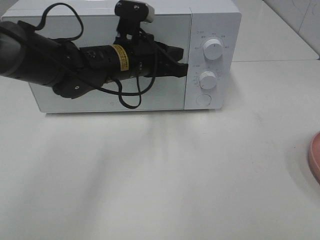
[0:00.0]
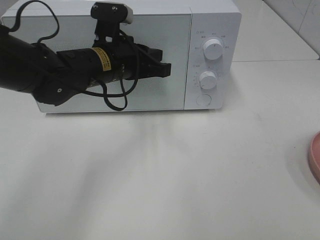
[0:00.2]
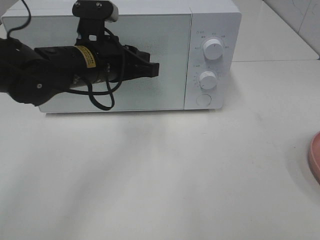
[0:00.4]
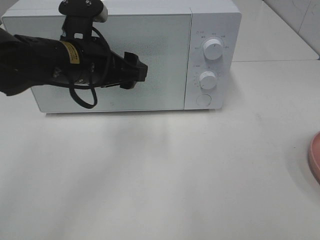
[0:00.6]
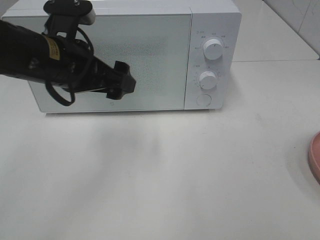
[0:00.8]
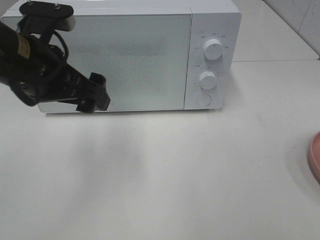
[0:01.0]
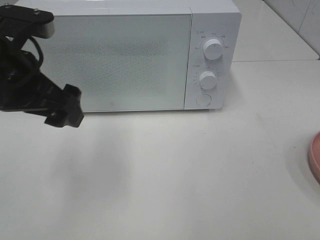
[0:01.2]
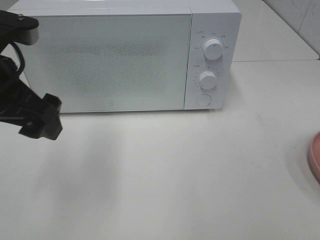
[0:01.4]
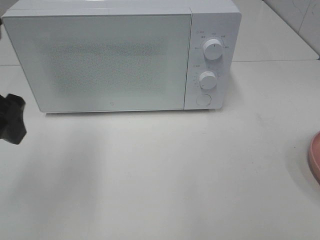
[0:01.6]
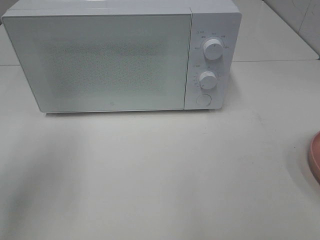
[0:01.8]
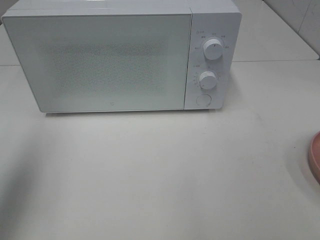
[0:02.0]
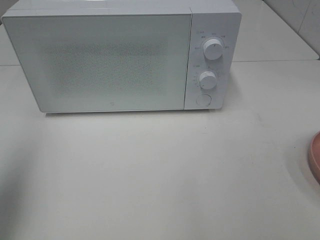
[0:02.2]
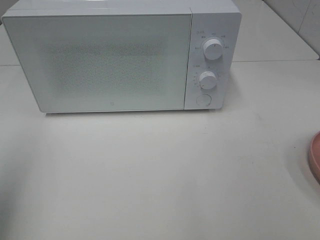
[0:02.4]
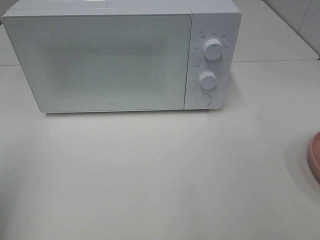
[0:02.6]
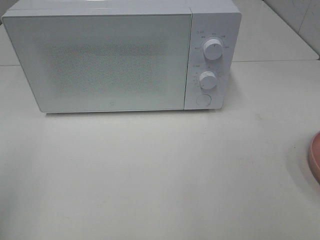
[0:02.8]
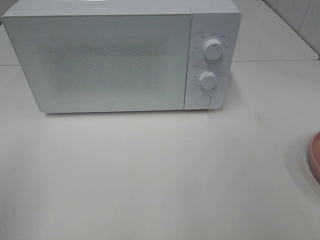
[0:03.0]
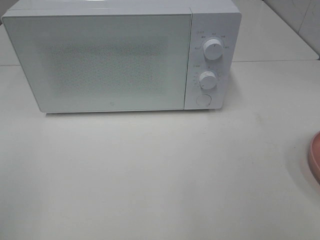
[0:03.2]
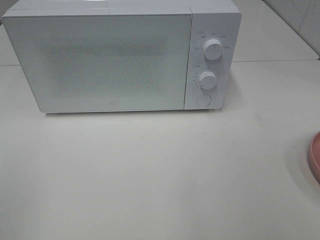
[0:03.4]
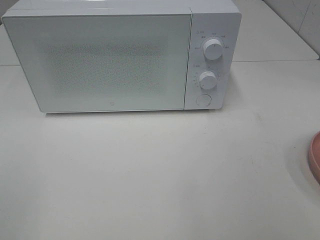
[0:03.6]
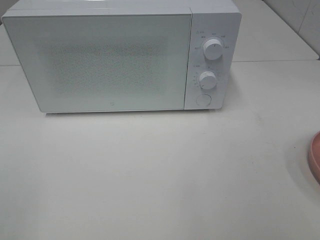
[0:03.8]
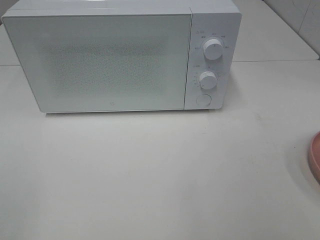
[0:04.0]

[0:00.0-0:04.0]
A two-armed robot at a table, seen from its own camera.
Task of the whole recording: Heat the burger.
0:00.0 to 0:01.4: The left gripper shifts roughly 20 cm to the left, backward and upward, and opens up.
0:01.4 to 0:02.6: The left gripper heads to the left and backward, covering approximately 15 cm.

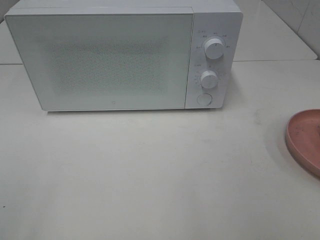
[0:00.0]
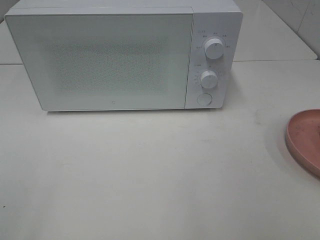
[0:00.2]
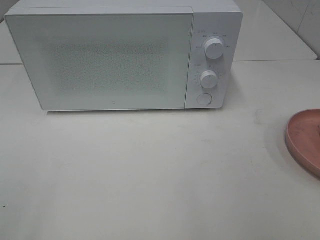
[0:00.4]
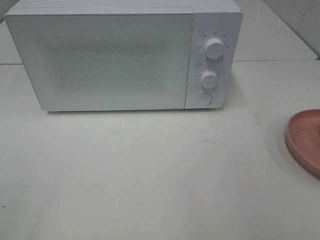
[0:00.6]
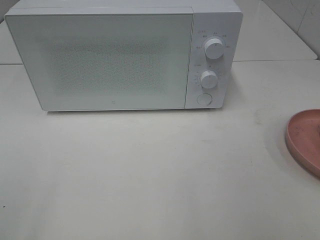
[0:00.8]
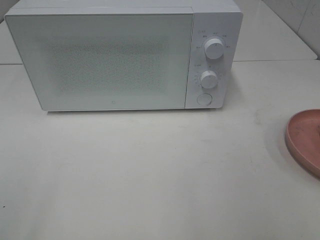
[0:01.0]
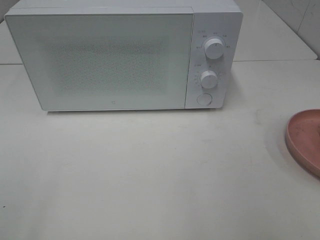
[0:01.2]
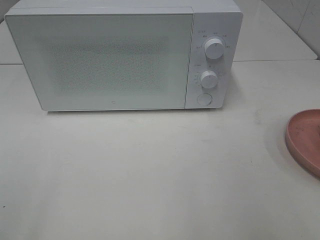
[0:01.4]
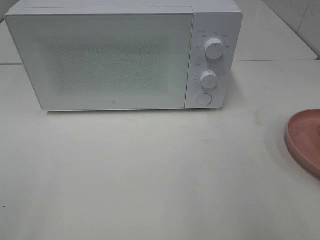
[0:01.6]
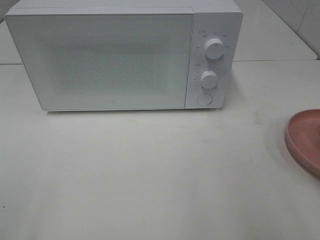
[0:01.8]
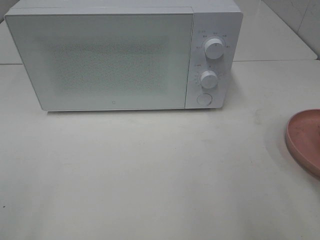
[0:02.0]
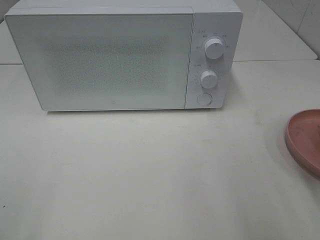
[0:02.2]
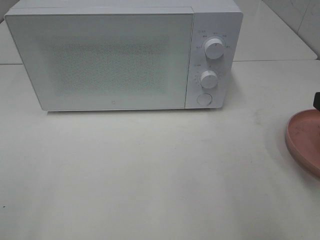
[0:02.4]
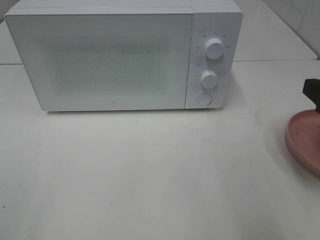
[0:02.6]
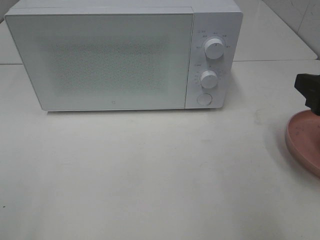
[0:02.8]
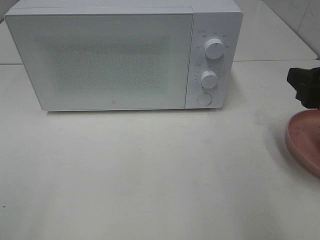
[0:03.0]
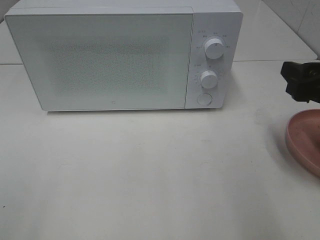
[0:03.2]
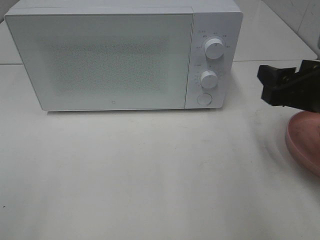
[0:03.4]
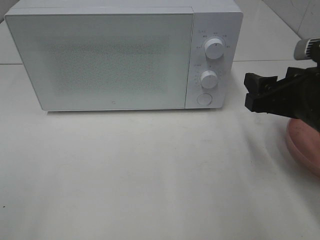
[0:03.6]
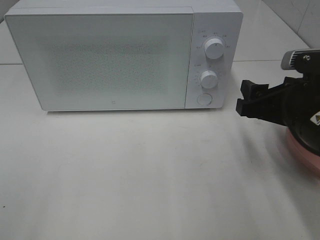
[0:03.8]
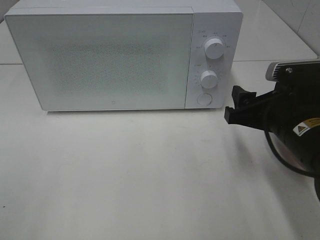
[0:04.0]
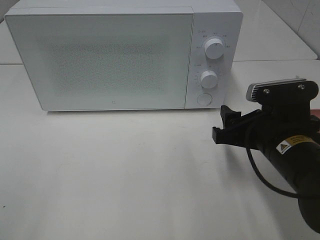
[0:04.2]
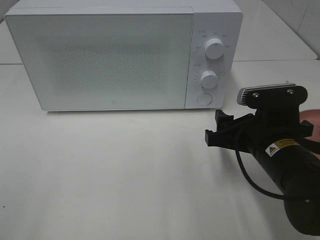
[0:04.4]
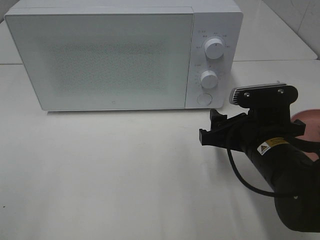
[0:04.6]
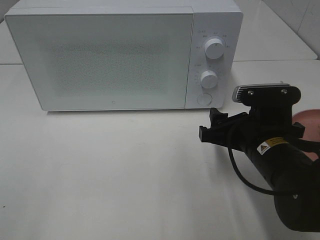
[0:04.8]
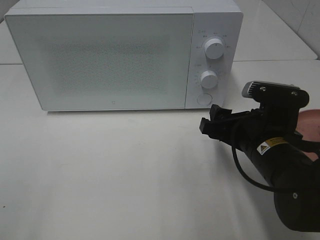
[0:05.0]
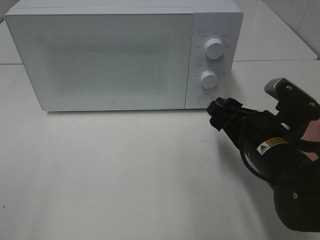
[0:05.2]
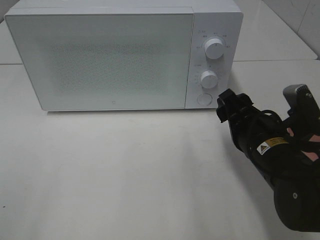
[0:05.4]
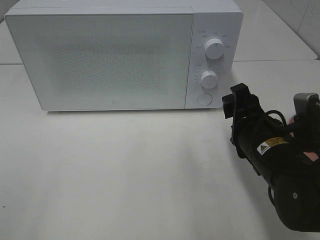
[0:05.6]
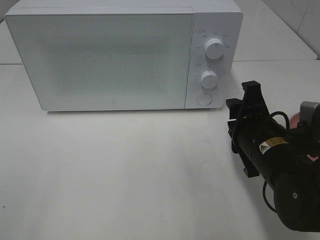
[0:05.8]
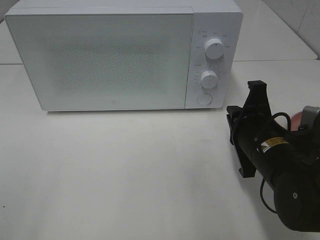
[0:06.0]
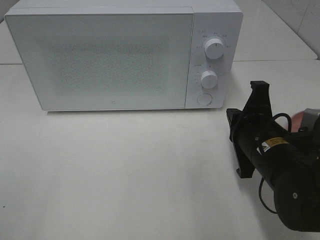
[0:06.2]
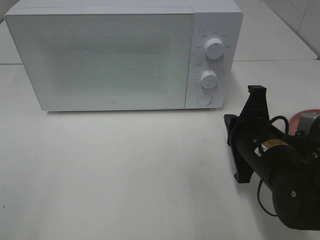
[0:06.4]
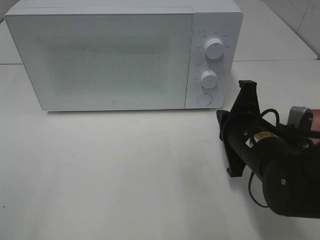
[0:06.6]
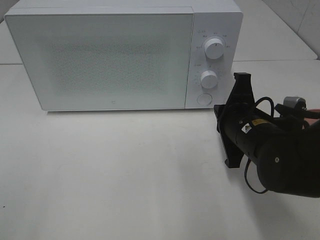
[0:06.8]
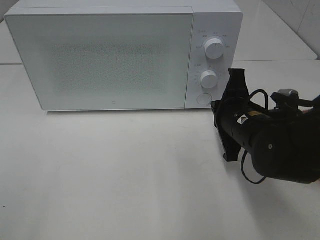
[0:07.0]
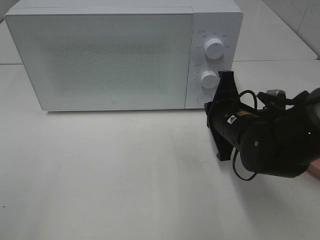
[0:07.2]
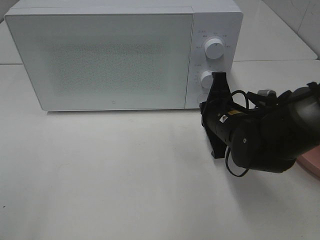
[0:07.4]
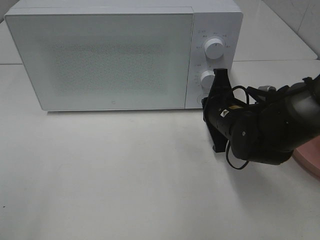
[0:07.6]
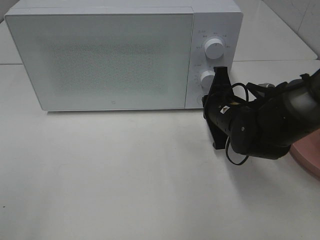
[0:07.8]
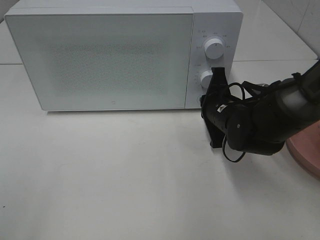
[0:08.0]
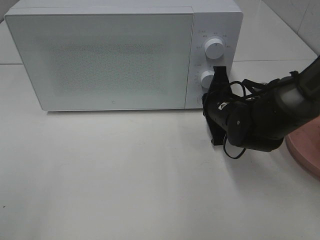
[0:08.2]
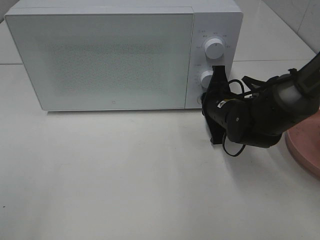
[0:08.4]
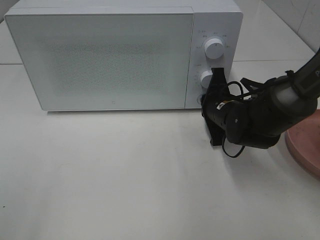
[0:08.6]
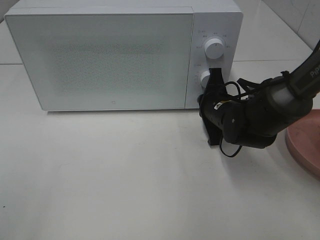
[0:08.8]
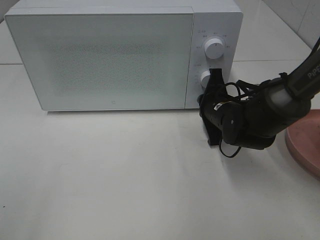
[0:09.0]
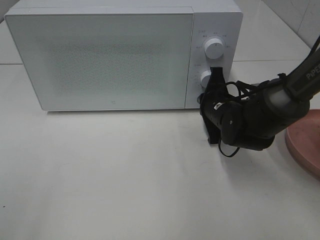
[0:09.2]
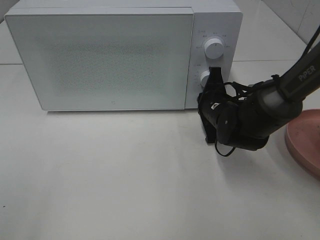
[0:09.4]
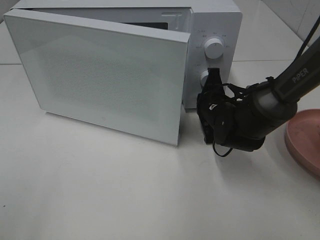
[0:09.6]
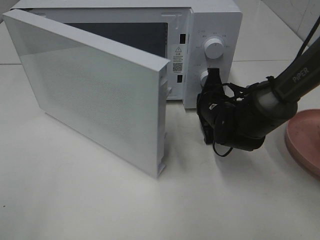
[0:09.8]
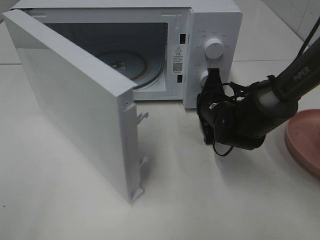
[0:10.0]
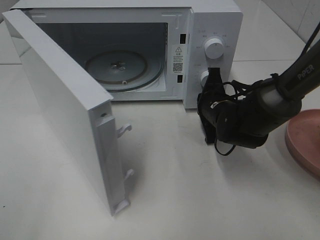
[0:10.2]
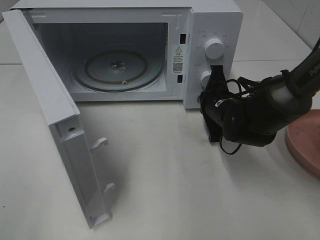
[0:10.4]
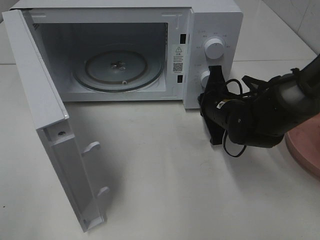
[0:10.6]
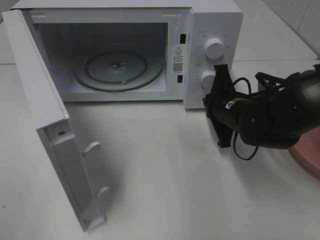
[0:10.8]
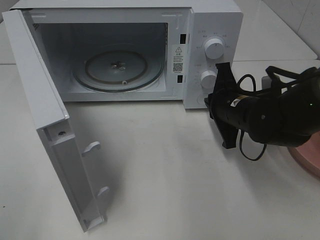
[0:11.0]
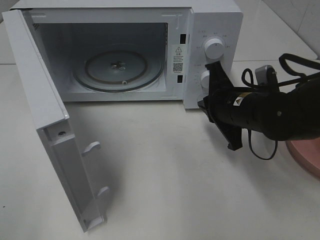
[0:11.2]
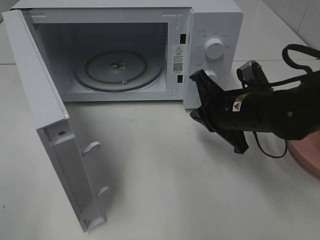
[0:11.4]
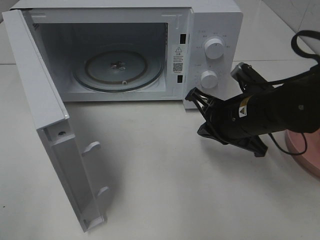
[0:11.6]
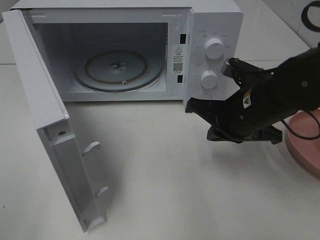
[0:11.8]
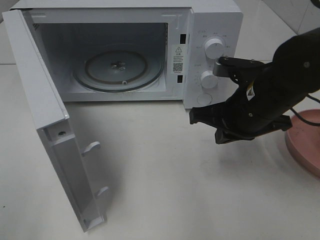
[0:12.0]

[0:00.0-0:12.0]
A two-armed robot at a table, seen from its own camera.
Task of the whole recording: Heat the burger.
Step, 0:00.0 to 0:10.8: Right hand: press the switch.
0:01.6 to 0:03.0: The right gripper travels forward by approximately 10 cm.
0:03.0 to 0:04.4: The right gripper is displaced to the left and downward by roughly 15 cm.
0:04.4 to 0:06.0: The right gripper closes up.
0:06.0 to 0:07.6: The right gripper heads forward, covering some 10 cm.
0:07.6 to 0:09.0: There are only small adjustments of the grippers.
0:10.4 to 0:12.0: The right gripper travels upward and backward by roughly 10 cm.

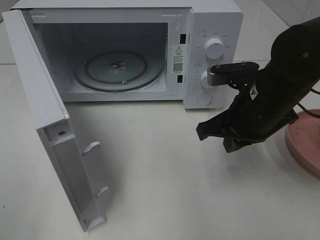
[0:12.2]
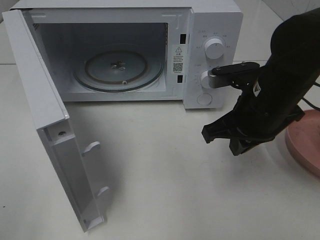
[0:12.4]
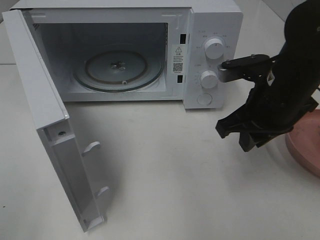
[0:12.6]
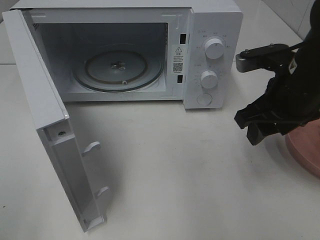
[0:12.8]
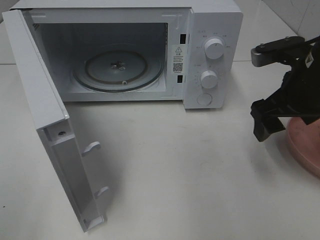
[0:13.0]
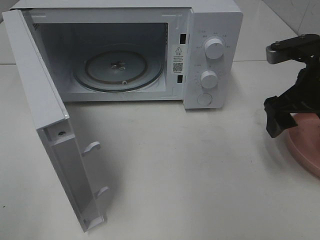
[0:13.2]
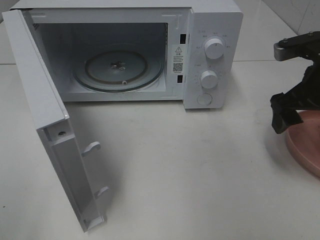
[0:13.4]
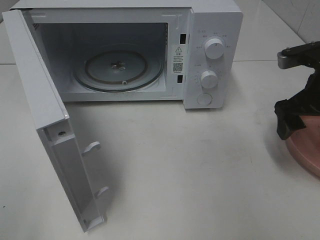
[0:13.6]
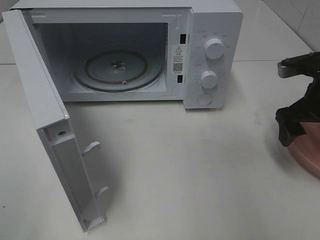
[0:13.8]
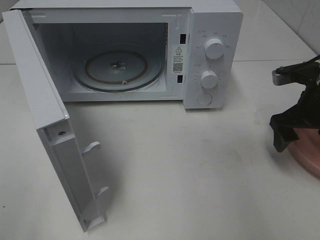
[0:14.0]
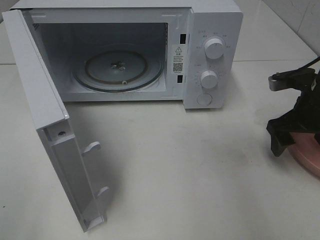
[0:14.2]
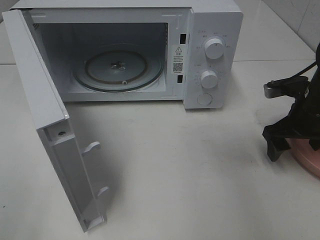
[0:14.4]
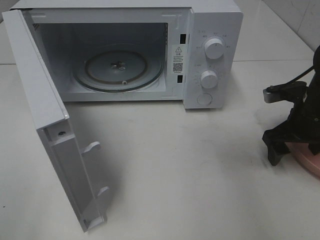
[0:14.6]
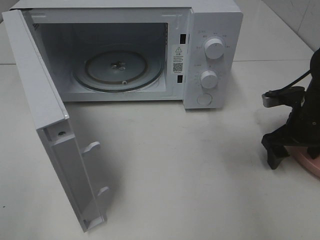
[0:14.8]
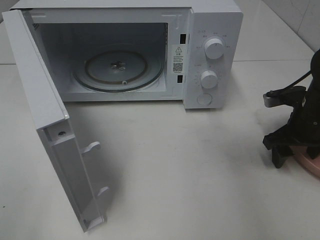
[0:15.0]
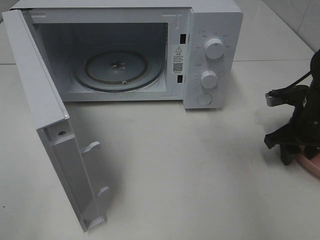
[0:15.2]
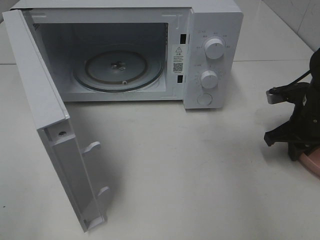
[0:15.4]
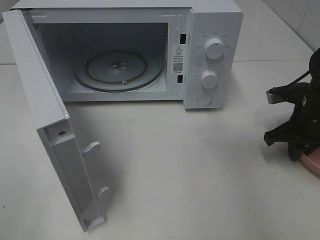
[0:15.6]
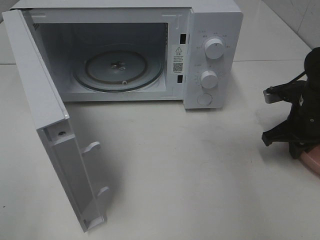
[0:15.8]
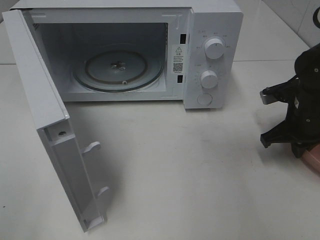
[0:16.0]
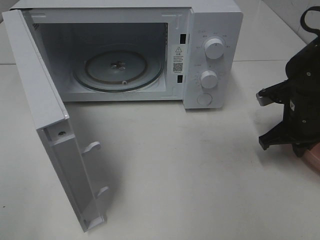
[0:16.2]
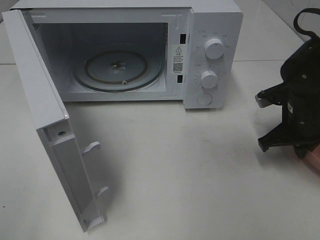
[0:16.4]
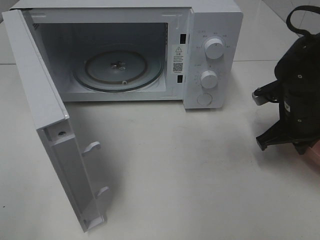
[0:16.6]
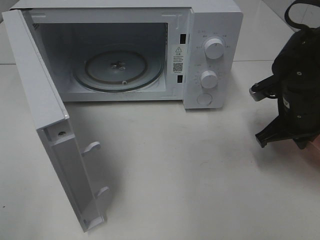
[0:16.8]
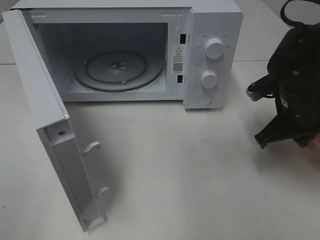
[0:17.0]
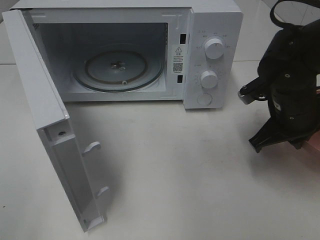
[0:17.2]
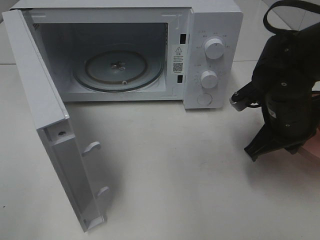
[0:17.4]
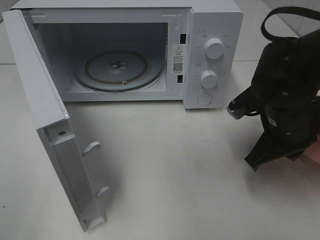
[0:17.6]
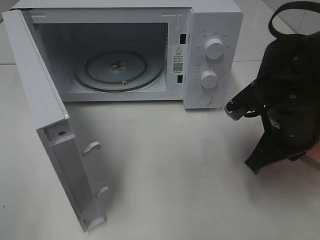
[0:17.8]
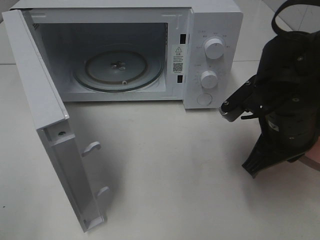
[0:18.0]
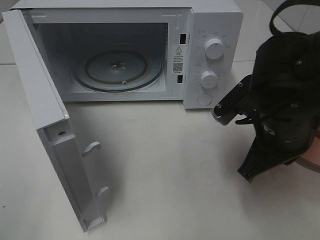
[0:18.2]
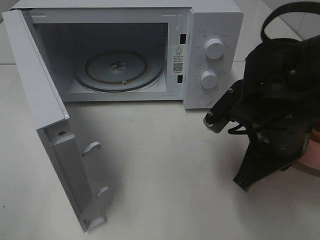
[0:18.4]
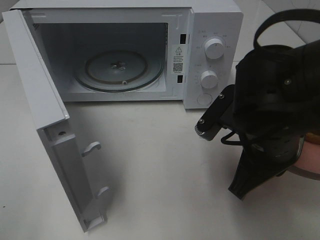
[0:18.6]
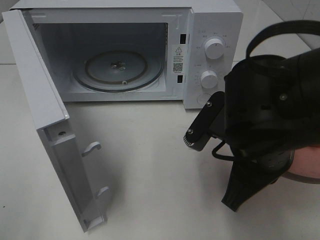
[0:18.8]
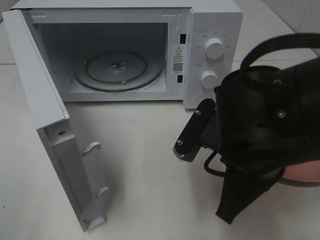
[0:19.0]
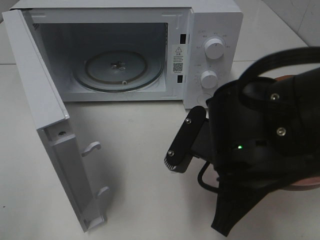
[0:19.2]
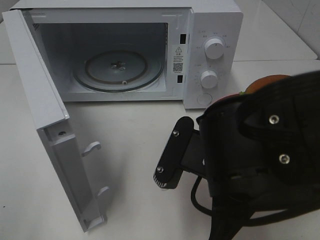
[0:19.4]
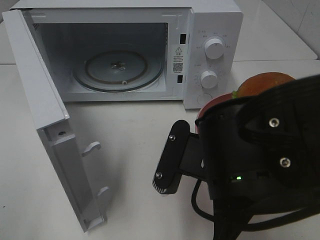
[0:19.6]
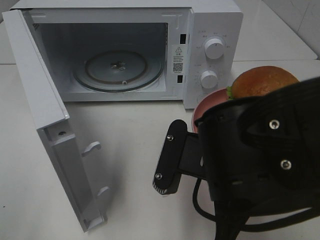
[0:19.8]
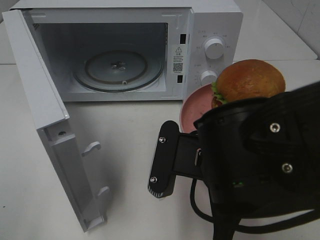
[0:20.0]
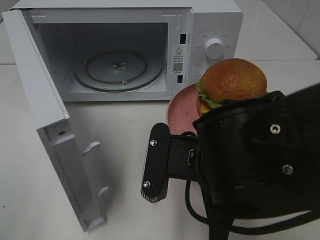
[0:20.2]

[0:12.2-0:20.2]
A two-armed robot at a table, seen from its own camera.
Task of the whole recording: Heat the burger.
Step, 0:12.2 to 0:16.4: Right hand: grab the plate with the hamburger.
0:12.2 to 0:13.8: The right gripper is displaced to the right by approximately 15 cm, and opens up.
0:13.8 to 0:15.4: The right gripper goes approximately 5 cm downward, and closes its fingers.
0:15.4 to 0:17.0: The right gripper is displaced to the left by some 5 cm.
0:17.0 to 0:18.6: The right gripper goes approximately 15 cm backward and to the left.
0:18.6 to 0:20.2: The right gripper shifts some 5 cm to the left.
